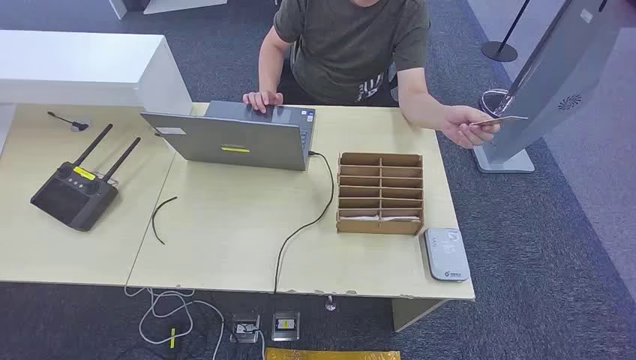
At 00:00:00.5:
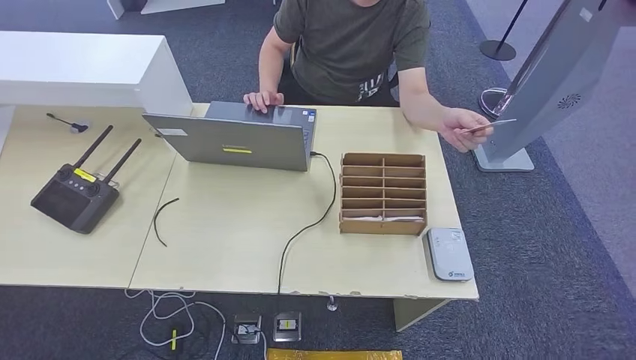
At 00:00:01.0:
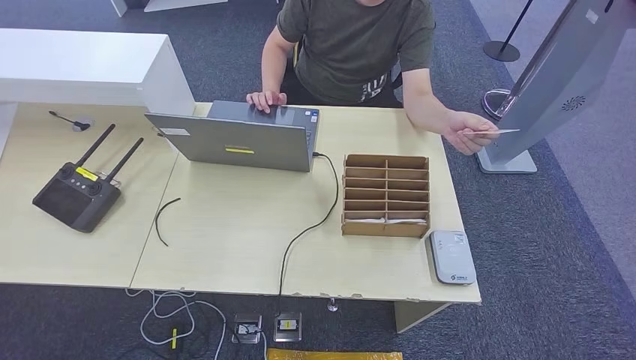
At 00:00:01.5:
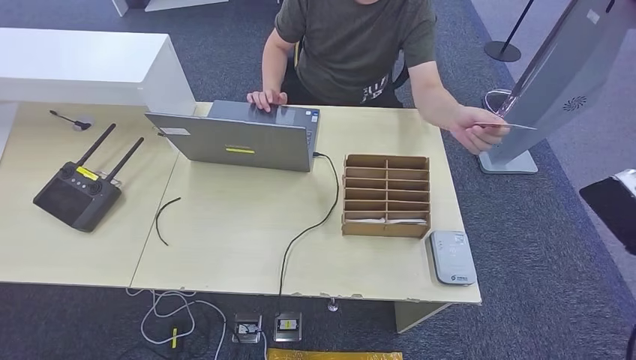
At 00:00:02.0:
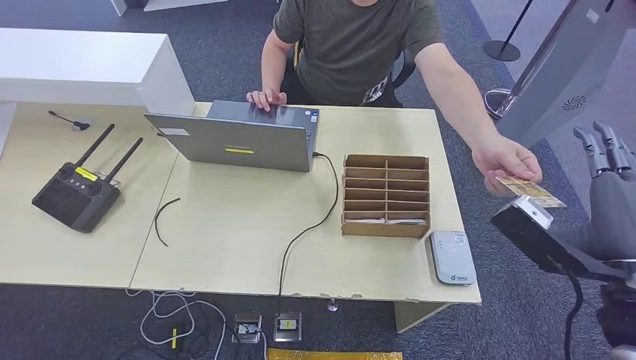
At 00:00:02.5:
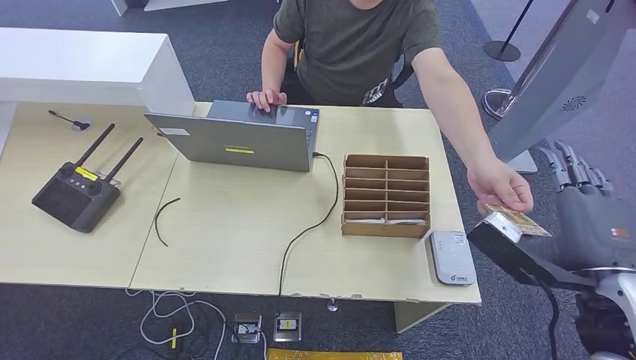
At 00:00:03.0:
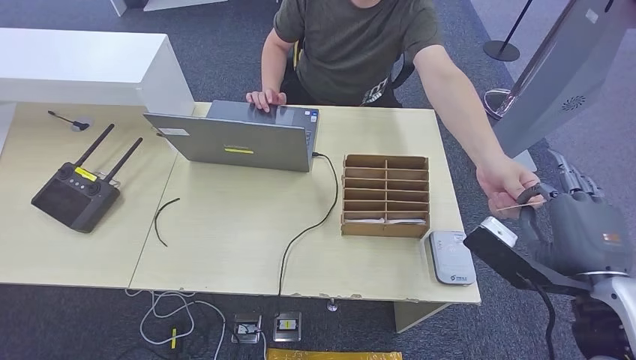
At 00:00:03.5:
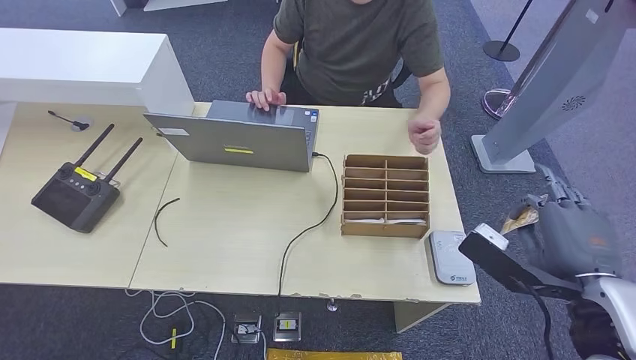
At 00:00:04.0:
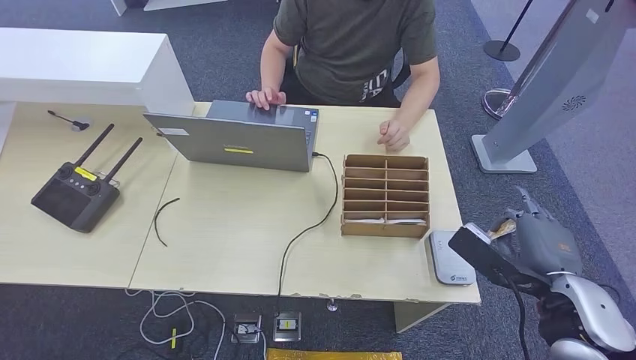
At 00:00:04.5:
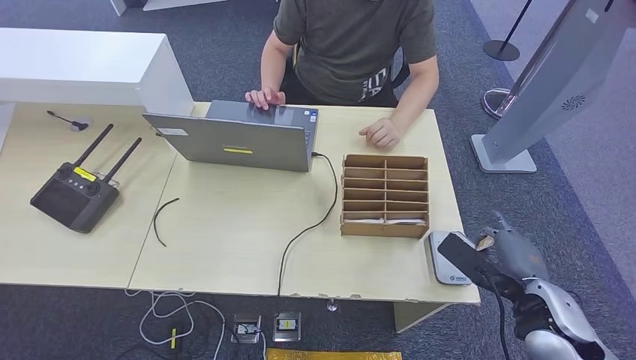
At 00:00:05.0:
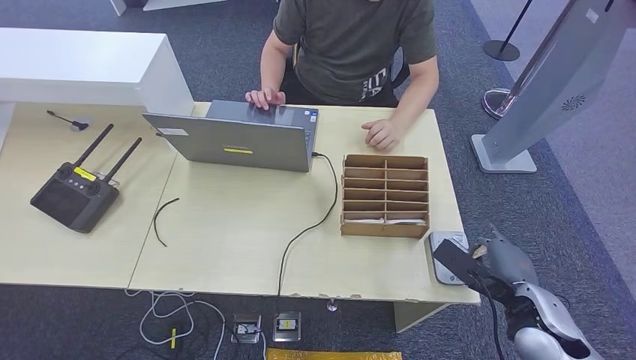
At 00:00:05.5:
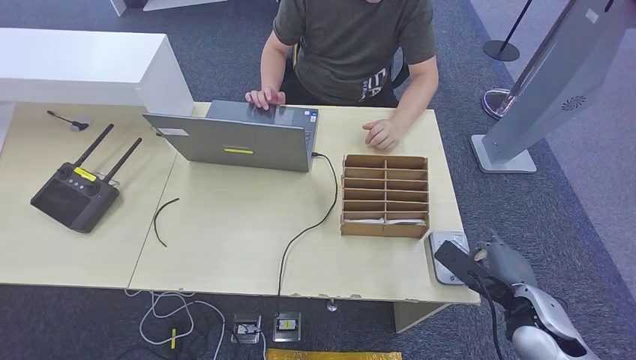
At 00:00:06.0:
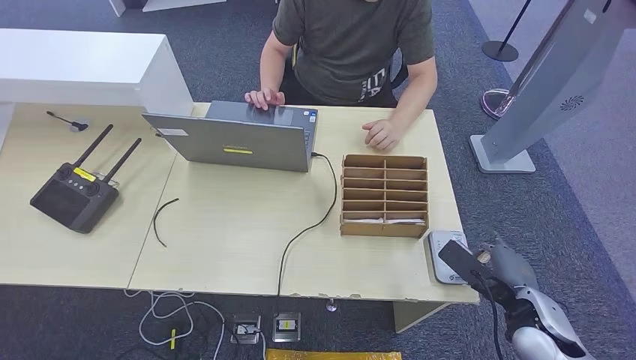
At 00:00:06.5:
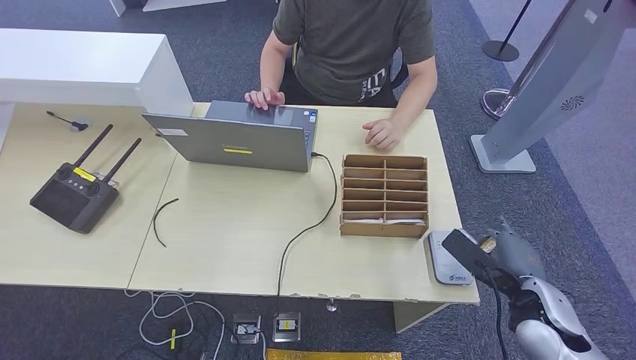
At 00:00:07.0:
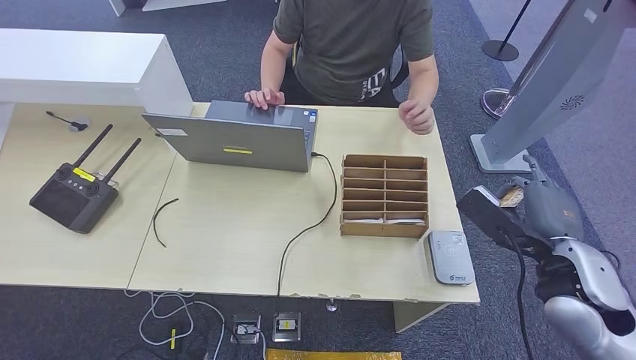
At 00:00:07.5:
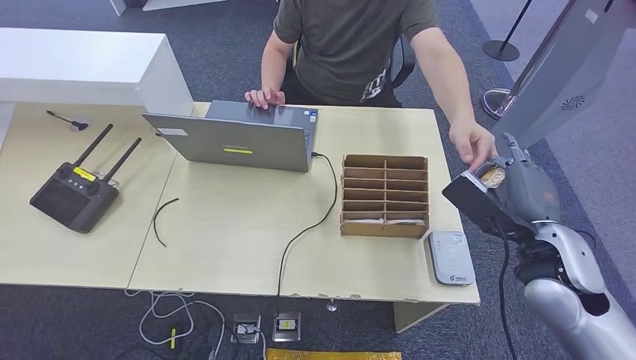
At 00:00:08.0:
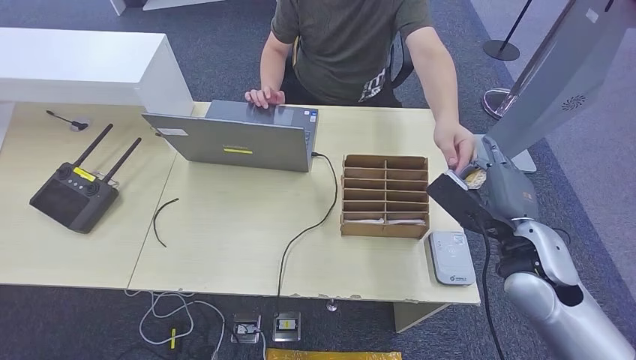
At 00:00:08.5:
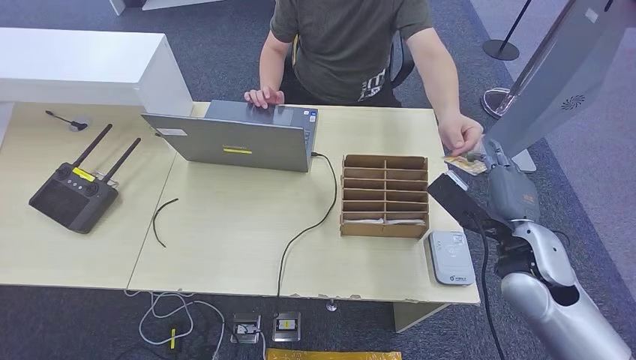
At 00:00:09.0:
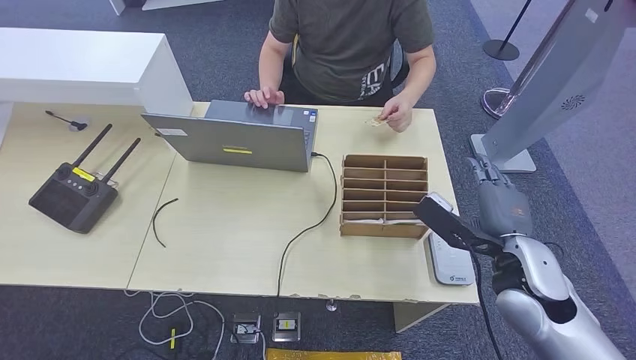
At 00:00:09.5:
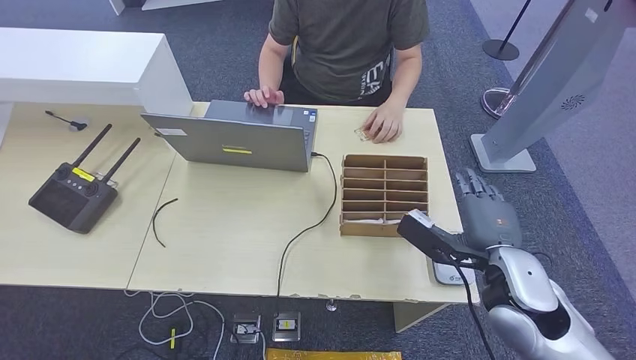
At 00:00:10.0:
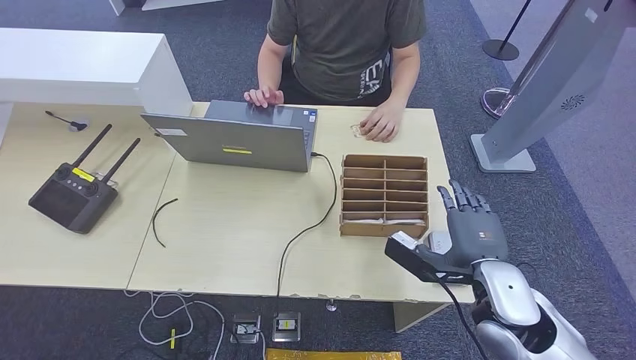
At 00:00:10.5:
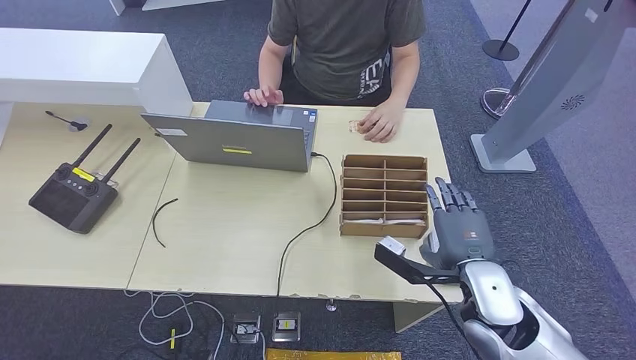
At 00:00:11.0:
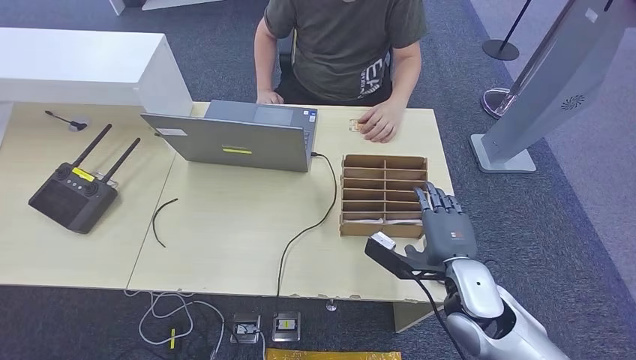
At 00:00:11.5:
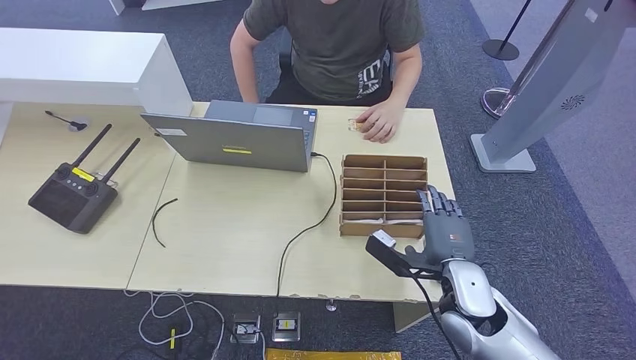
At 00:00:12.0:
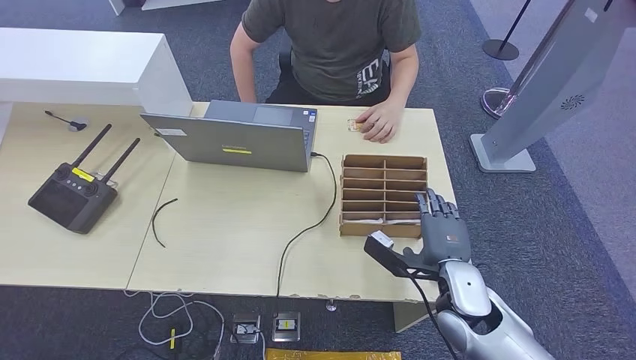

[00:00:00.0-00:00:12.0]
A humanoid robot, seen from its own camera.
Step, 00:00:00.0 to 00:00:03.5: Take the ID card from the person's hand.
Step, 00:00:04.0 to 00:00:06.0: Place the ID card on the card reader.
Step, 00:00:06.5 to 00:00:08.5: Hand the ID card to the person.
00:00:02.0 to 00:00:04.0: The right hand moves downward, some 10 cm.
00:00:04.0 to 00:00:06.0: The right hand travels downward by approximately 10 cm.
00:00:06.0 to 00:00:08.0: The right hand travels upward and forward by approximately 15 cm.
00:00:08.0 to 00:00:10.0: The right hand heads backward, covering approximately 5 cm.
00:00:10.0 to 00:00:12.0: The right hand moves downward, roughly 5 cm.

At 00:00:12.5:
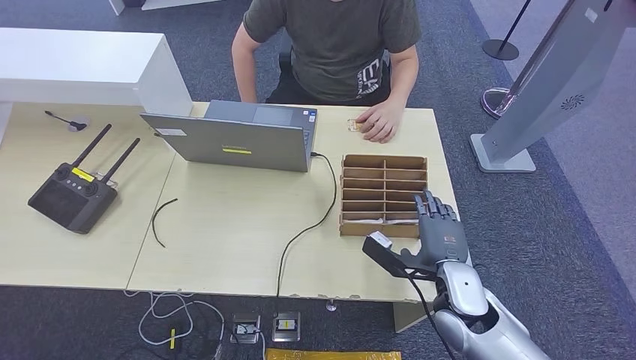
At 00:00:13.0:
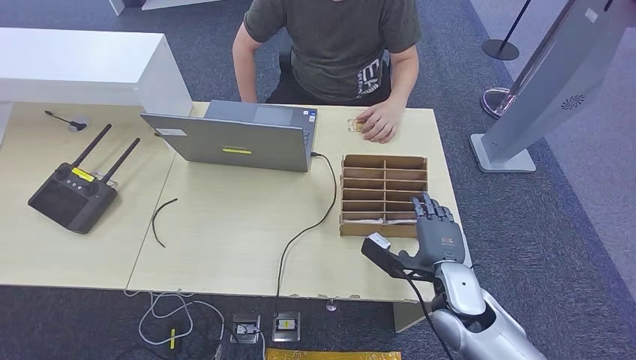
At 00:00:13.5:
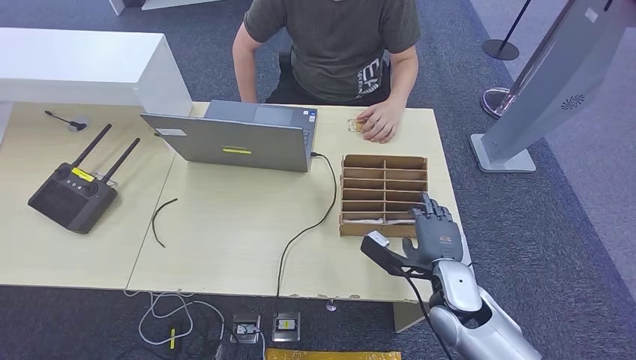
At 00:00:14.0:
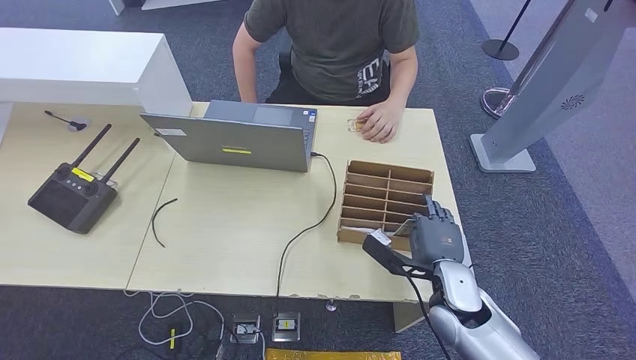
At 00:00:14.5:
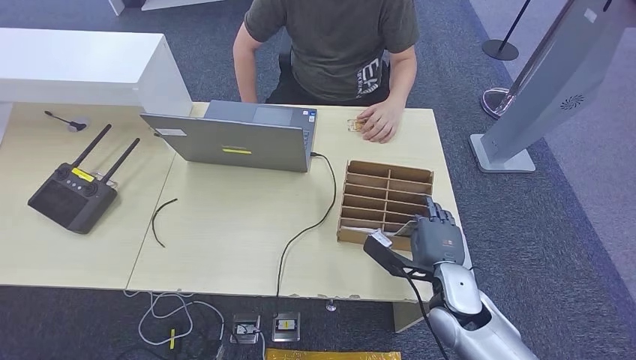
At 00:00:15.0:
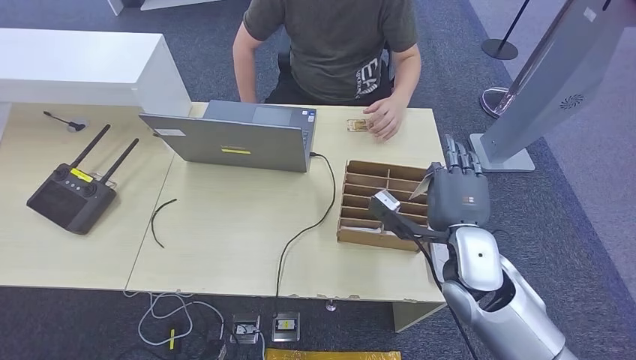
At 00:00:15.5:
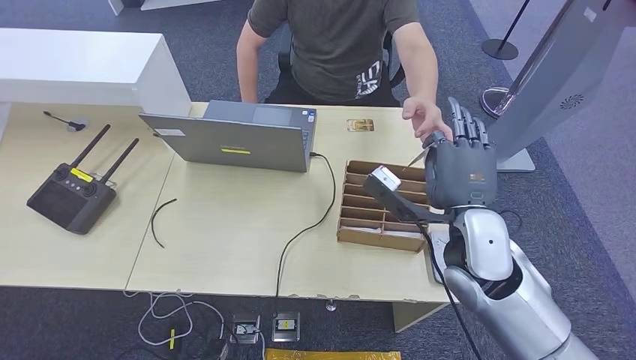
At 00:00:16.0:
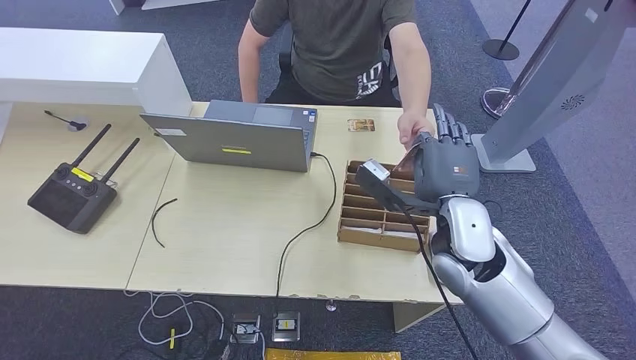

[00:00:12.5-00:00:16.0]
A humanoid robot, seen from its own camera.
Step, 00:00:12.5 to 00:00:15.0: Pick up the room key from the key card box.
Step, 00:00:15.5 to 00:00:16.0: Hand the room key to the person.
00:00:12.5 to 00:00:14.5: The hands make only small movements.
00:00:14.5 to 00:00:16.0: The right hand moves upward, some 15 cm.
